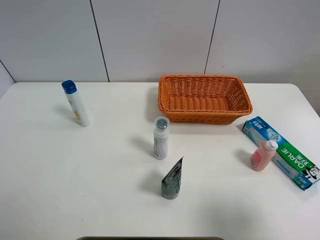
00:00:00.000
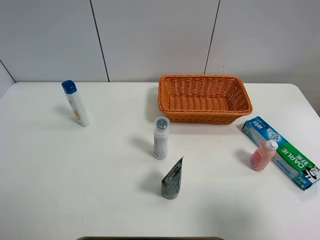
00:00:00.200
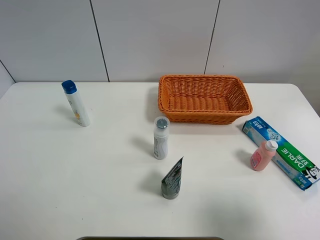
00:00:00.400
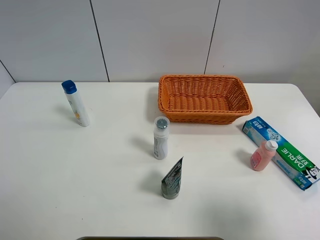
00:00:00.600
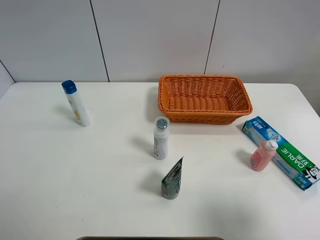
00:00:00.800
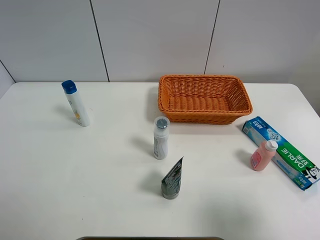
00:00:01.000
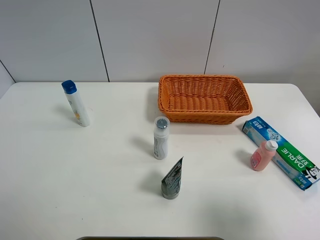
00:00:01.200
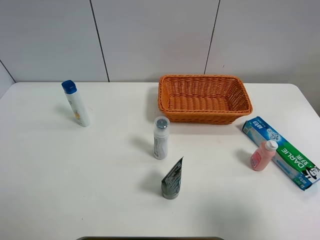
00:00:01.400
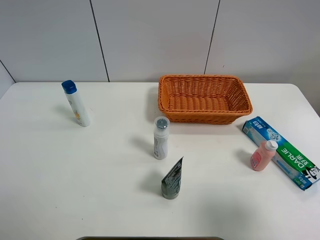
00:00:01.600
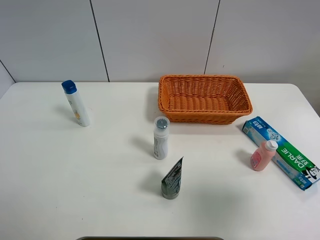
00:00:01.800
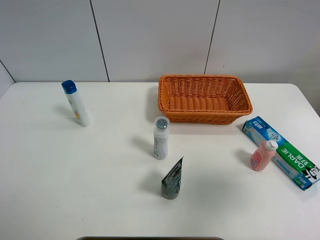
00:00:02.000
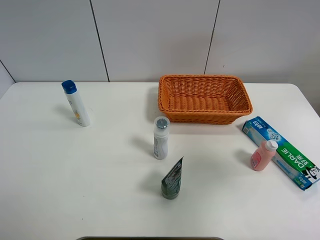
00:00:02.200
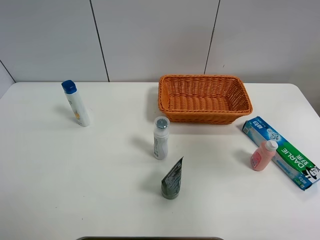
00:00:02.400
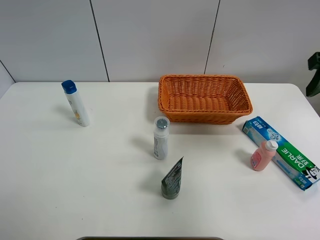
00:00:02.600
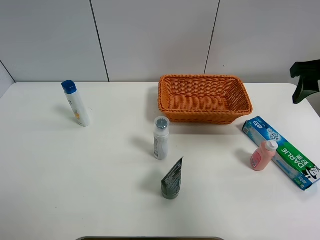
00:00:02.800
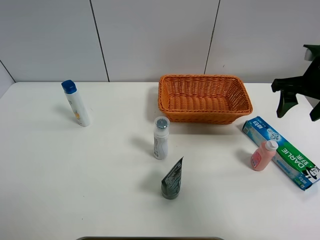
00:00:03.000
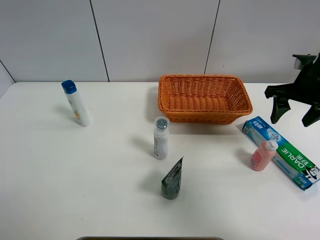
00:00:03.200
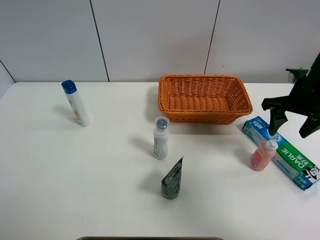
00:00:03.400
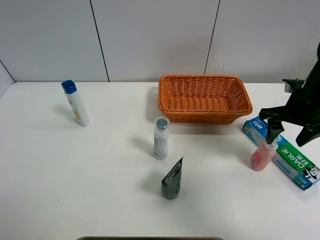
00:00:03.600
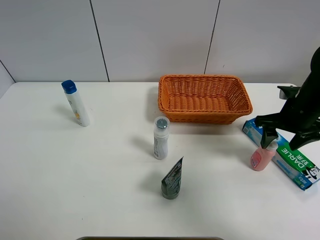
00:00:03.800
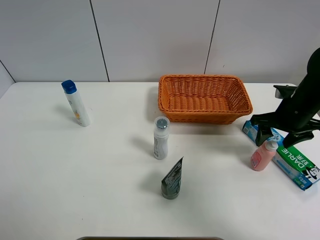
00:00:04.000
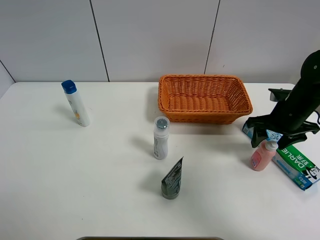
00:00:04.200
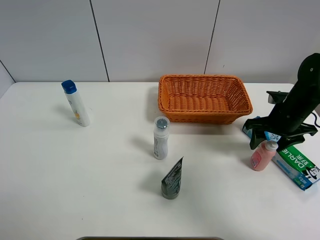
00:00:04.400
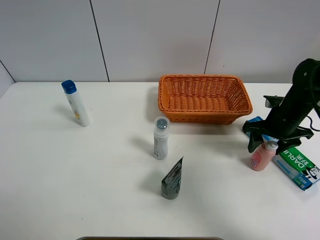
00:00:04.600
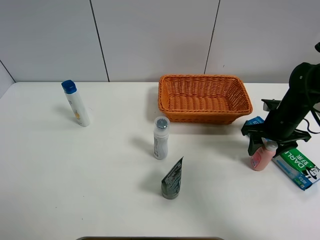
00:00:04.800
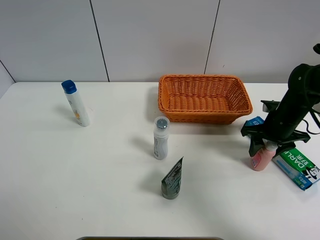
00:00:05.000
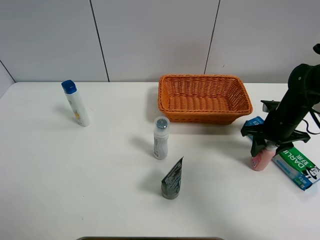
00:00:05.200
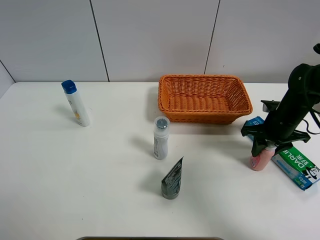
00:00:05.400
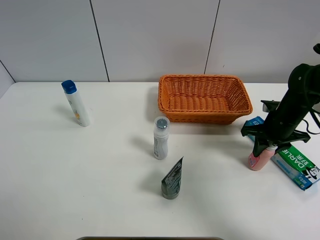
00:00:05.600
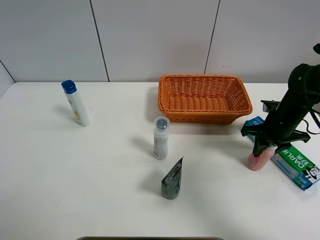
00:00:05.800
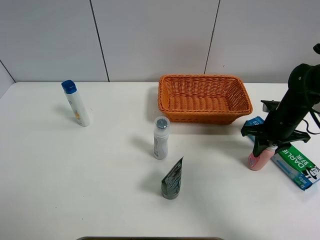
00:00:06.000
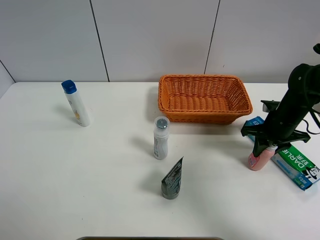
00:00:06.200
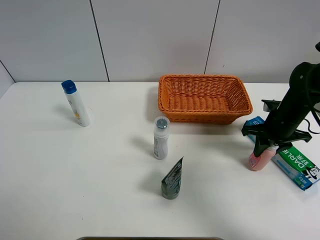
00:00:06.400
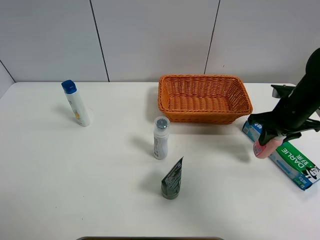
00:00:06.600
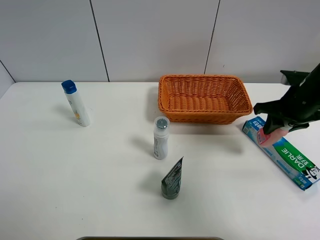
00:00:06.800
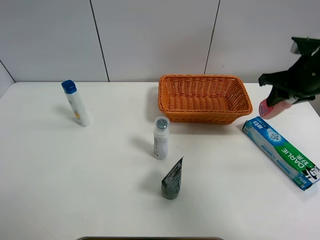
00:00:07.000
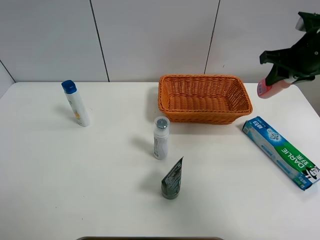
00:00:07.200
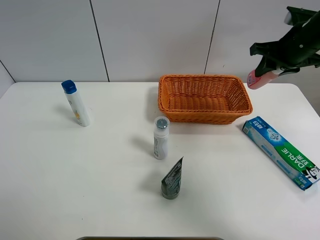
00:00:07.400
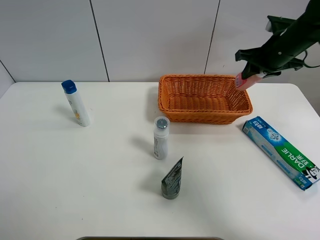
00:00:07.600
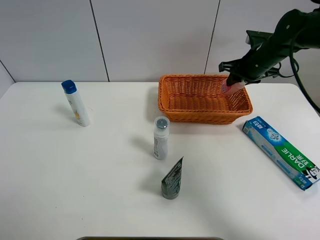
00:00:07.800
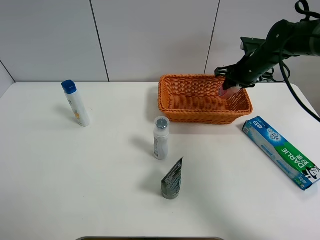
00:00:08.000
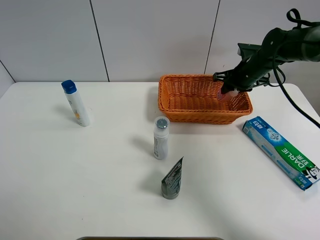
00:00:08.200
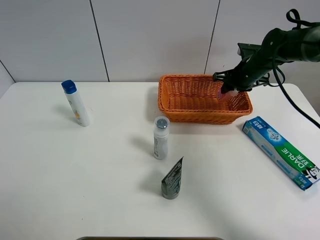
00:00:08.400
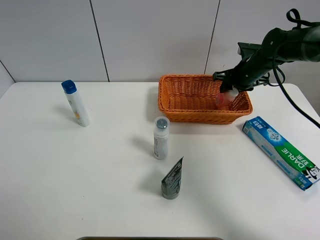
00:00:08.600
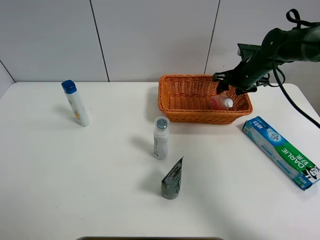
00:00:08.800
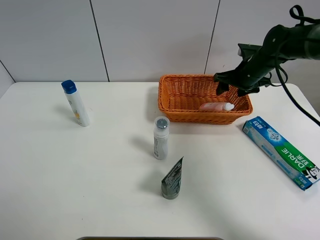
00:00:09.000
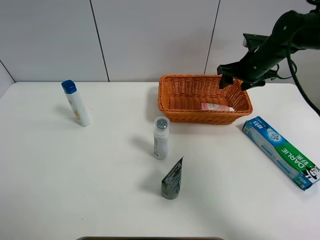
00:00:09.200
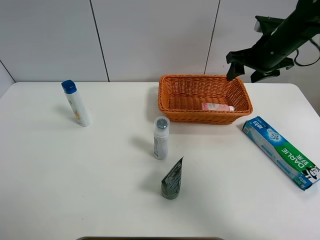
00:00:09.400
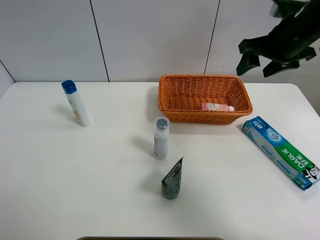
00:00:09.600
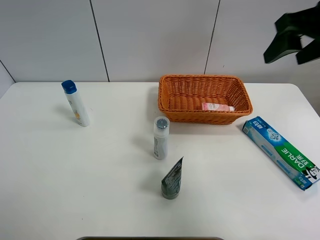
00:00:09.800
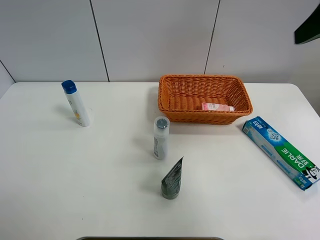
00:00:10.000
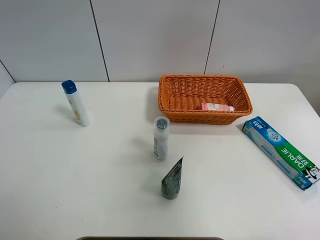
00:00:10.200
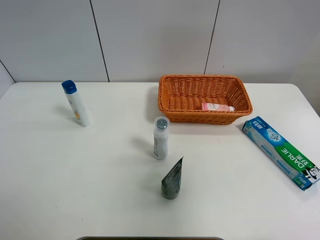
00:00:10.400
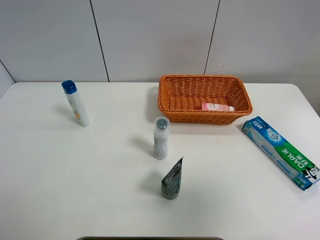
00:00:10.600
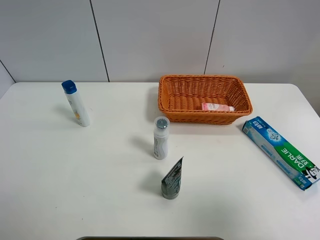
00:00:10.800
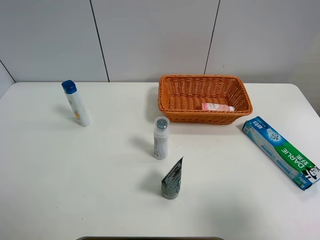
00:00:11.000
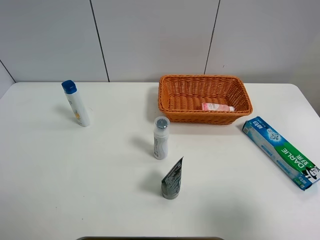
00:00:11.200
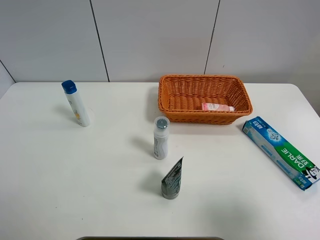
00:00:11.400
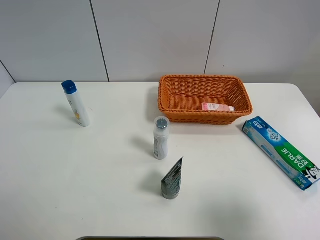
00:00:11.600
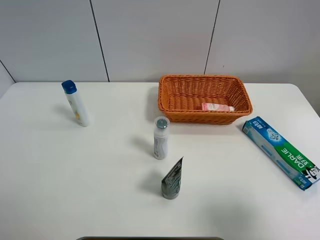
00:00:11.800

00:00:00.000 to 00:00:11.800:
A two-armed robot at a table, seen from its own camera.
Task of the whole recording: Place the object closest to the toothpaste in the basket.
Step, 00:00:00.000 to 00:00:05.800: Grasp the pink laundry detergent with right gripper.
Step, 00:00:06.000 to 00:00:09.600: Place the pink laundry detergent in the basket with right gripper.
00:00:00.000 to 00:00:01.400: Both grippers stay about where they are.
00:00:01.400 to 00:00:03.000: The right gripper goes approximately 30 cm forward.
00:00:03.000 to 00:00:04.400: The right gripper shifts approximately 10 cm downward.
00:00:04.400 to 00:00:06.000: The right gripper closes.
00:00:06.000 to 00:00:07.400: The right gripper goes roughly 15 cm upward.
00:00:07.400 to 00:00:08.800: The right gripper goes about 10 cm downward and forward, and opens.
00:00:08.800 to 00:00:10.400: The right gripper heads backward and upward, covering roughly 50 cm.
00:00:10.400 to 00:00:11.800: The right gripper shifts about 20 cm downward.
